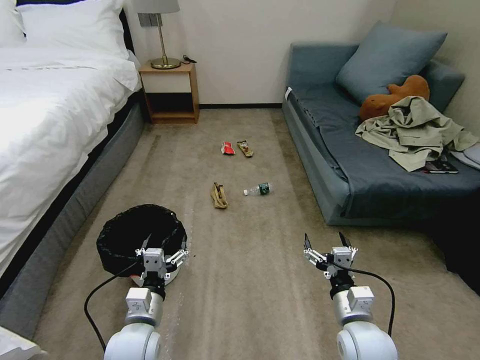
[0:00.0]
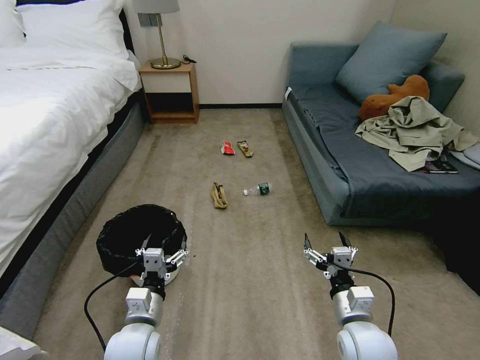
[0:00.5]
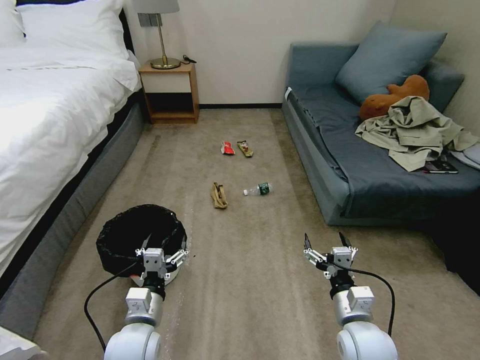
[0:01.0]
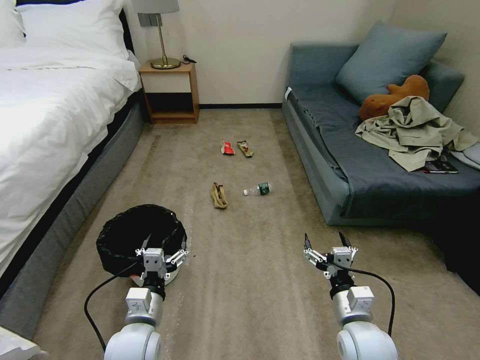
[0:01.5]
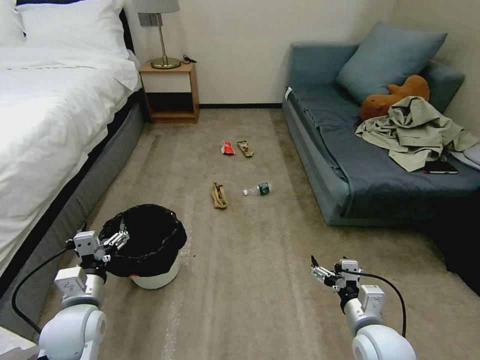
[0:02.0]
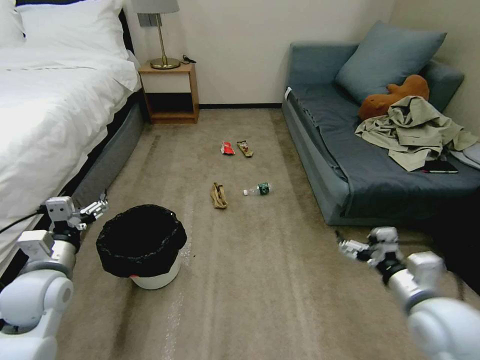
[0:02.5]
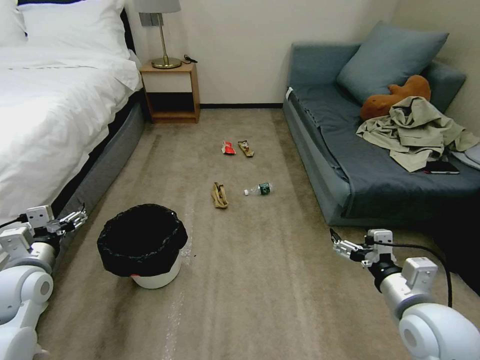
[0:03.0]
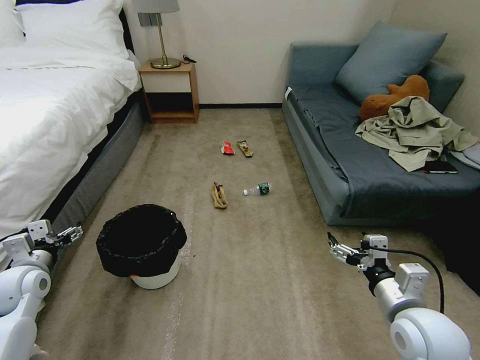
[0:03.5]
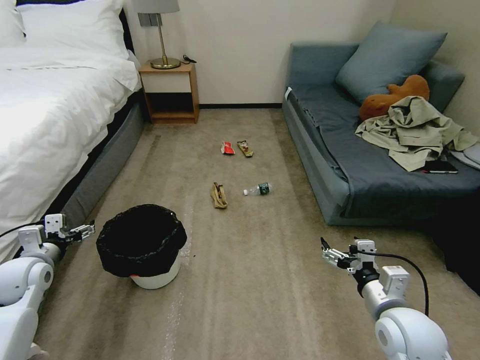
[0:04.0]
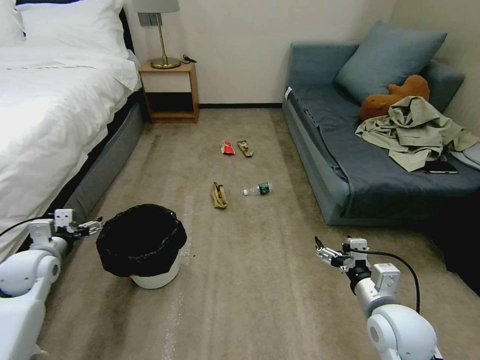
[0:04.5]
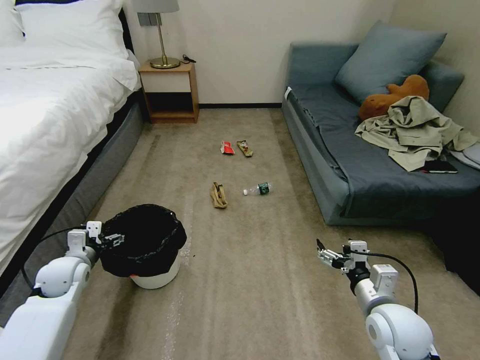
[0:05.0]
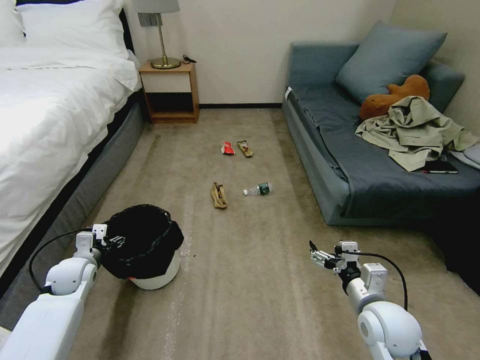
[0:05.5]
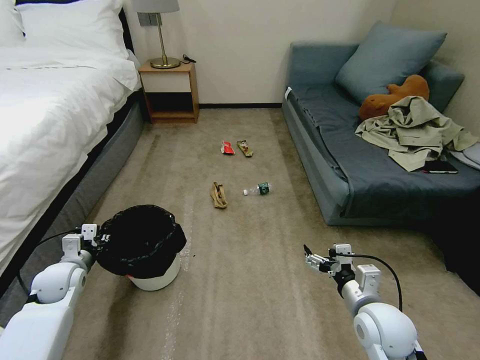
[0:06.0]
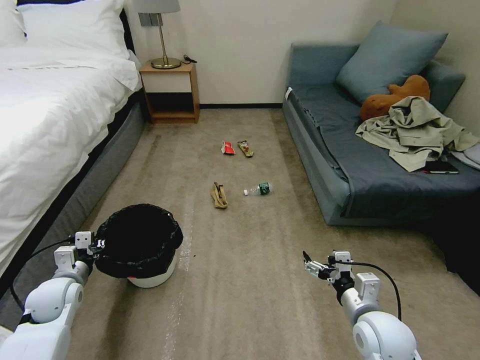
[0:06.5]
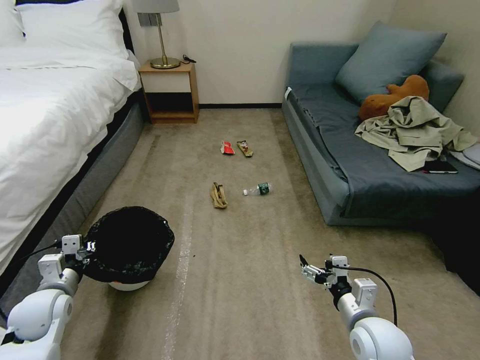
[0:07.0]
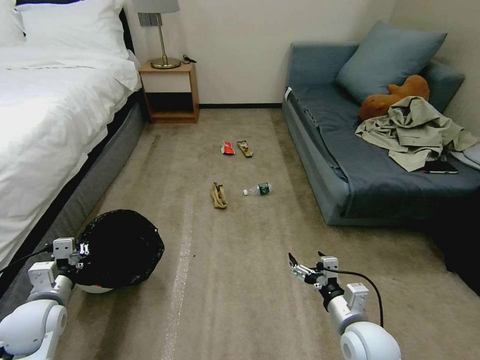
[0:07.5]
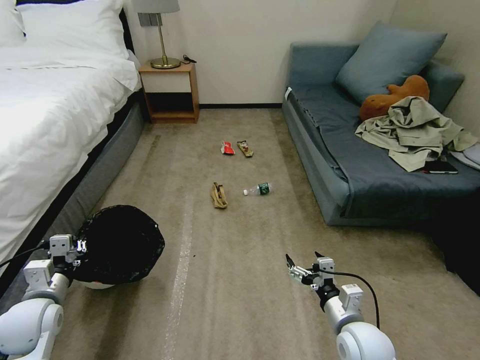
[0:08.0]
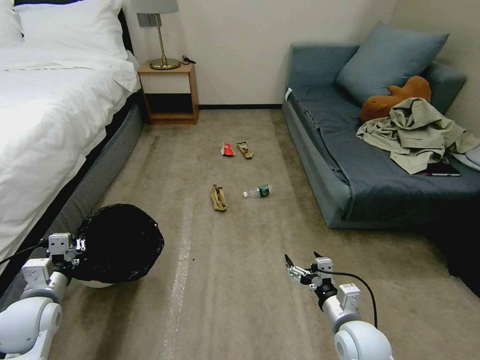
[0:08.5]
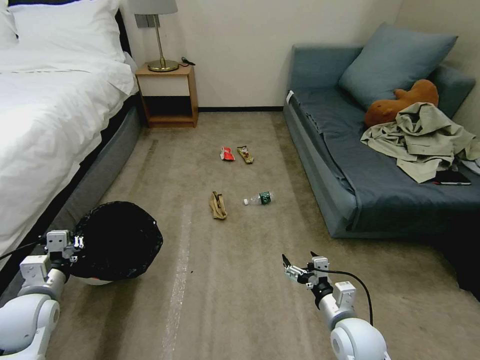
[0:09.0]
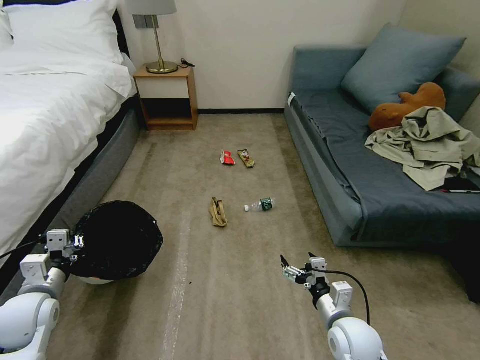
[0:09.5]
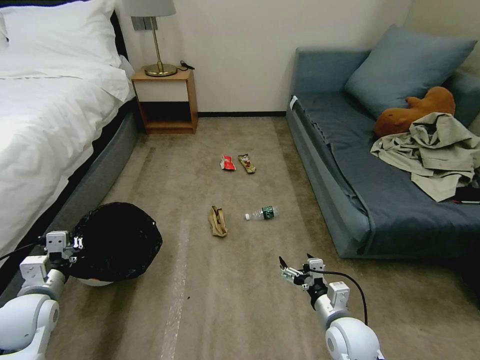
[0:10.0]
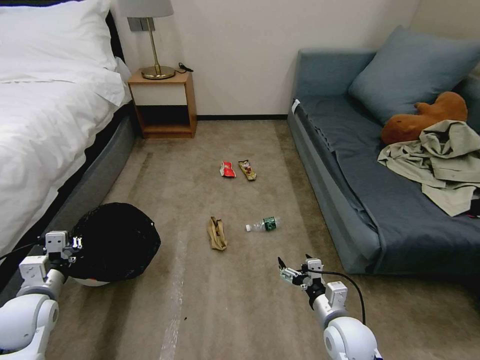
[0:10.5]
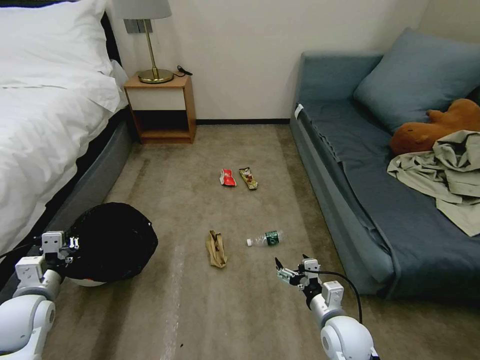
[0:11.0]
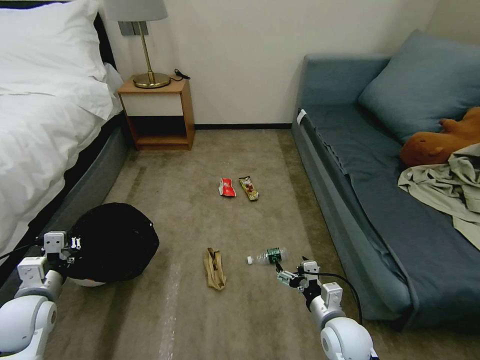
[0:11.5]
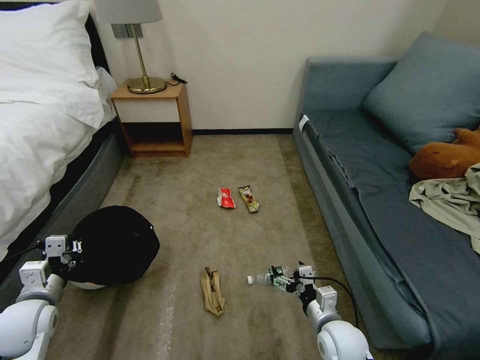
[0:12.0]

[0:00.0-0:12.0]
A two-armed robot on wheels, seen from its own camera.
Task of the whole recording: Pick up the trash bin, then pick up the garbage on the floor and place it into the trash bin.
0:02.0 to 0:04.0: The left gripper shifts some 15 cm to the left and forward. The right gripper goes about 5 cm upward.
0:04.0 to 0:06.0: The left gripper heads downward, covering roughly 5 cm, and closes up.
0:06.0 to 0:08.0: The right gripper shifts by about 5 cm; the left gripper shifts roughly 10 cm backward.

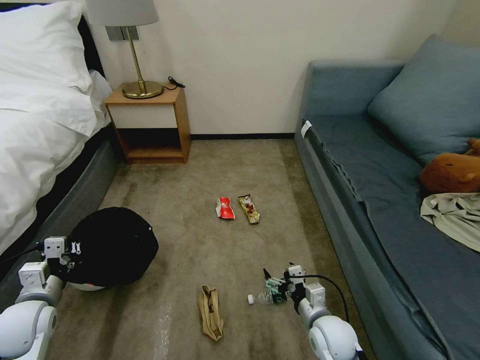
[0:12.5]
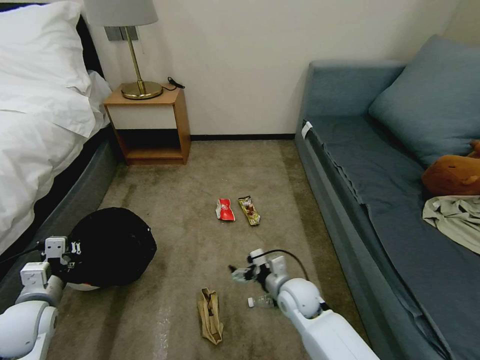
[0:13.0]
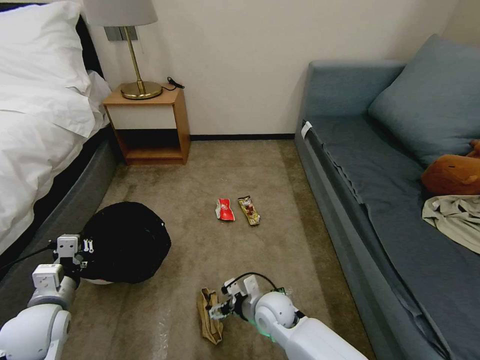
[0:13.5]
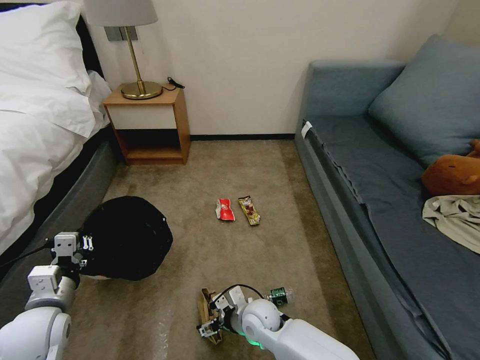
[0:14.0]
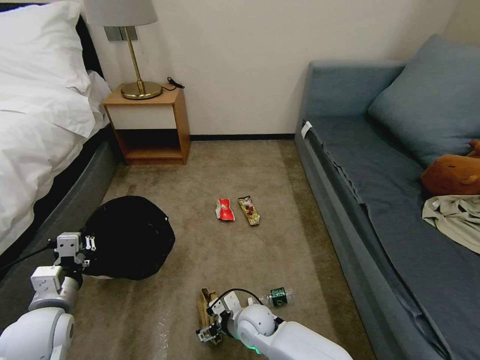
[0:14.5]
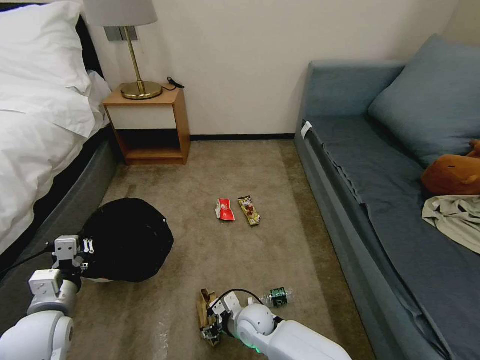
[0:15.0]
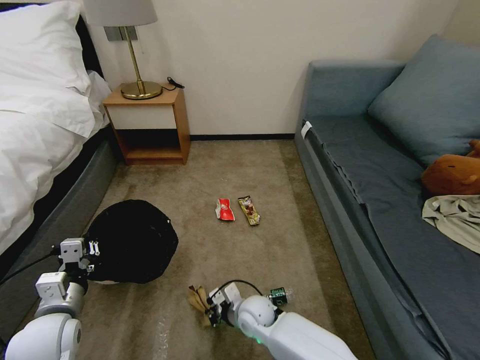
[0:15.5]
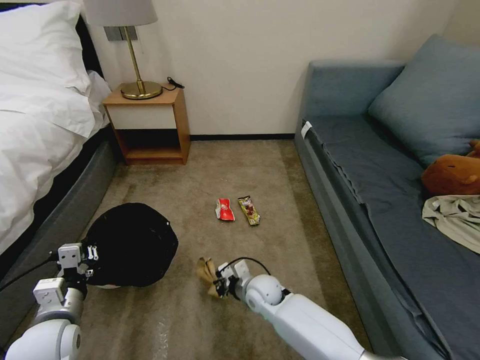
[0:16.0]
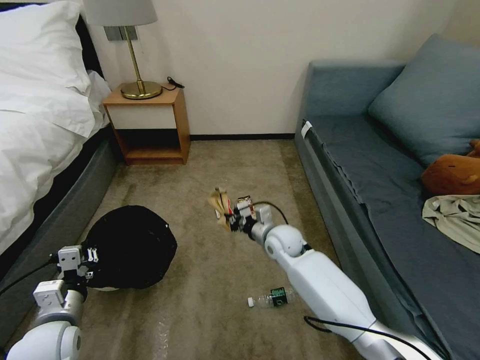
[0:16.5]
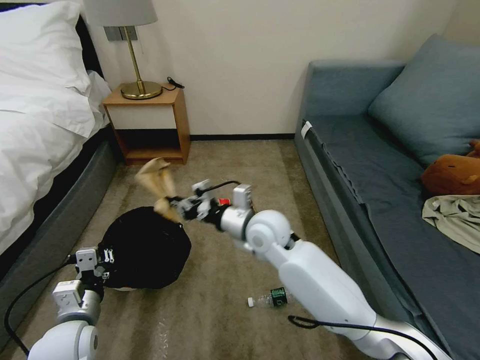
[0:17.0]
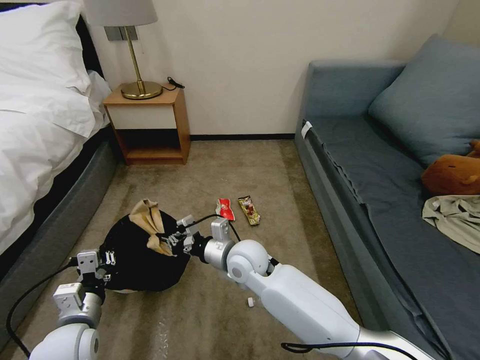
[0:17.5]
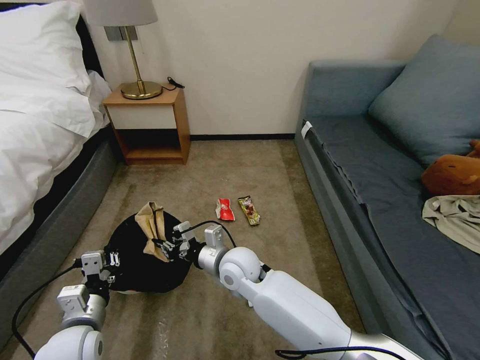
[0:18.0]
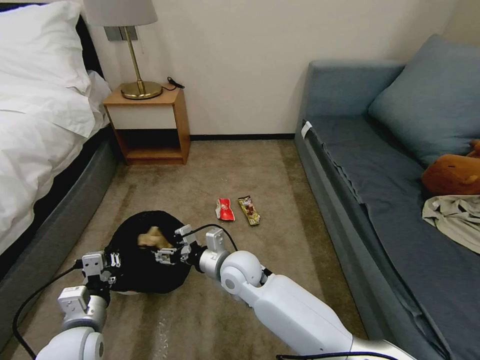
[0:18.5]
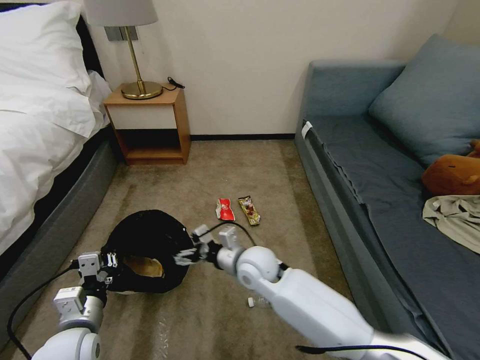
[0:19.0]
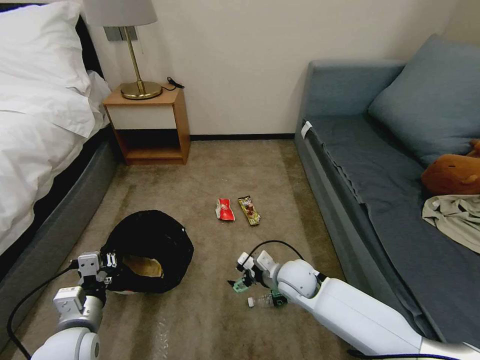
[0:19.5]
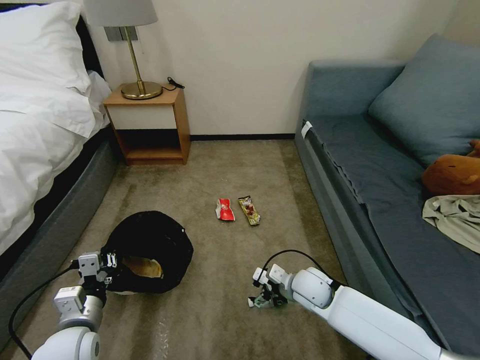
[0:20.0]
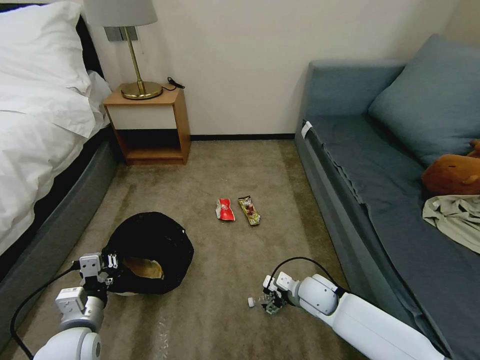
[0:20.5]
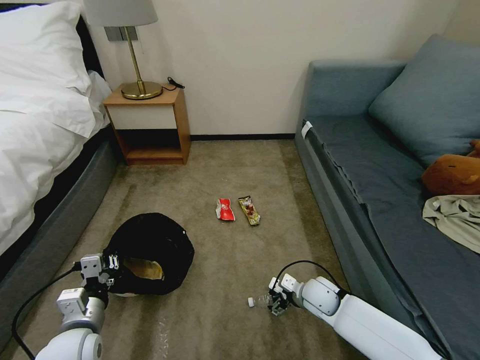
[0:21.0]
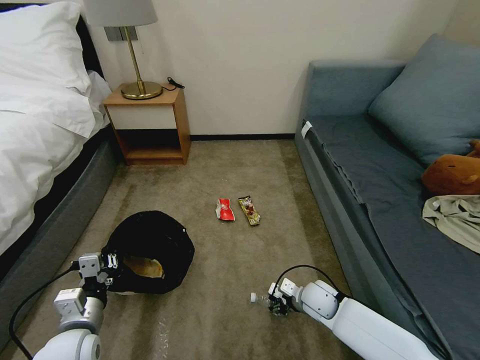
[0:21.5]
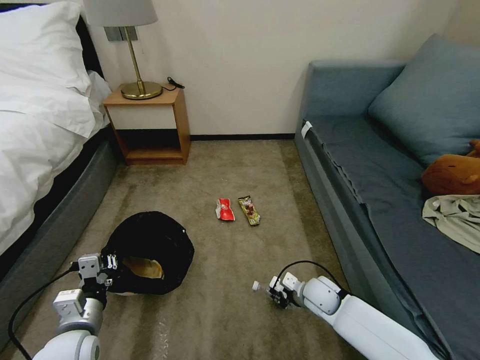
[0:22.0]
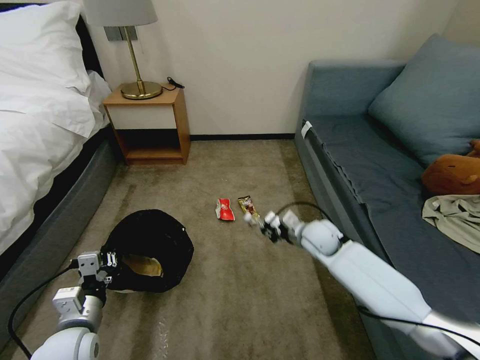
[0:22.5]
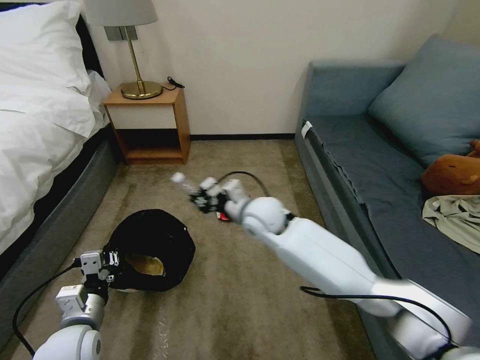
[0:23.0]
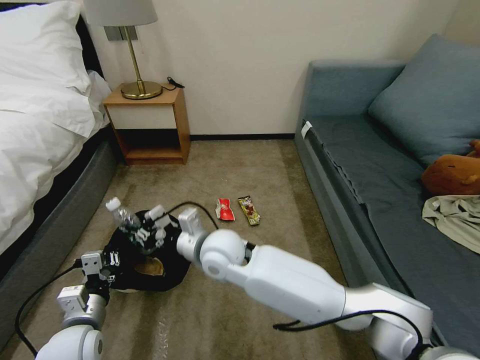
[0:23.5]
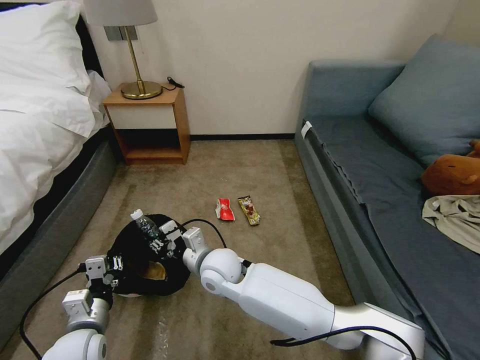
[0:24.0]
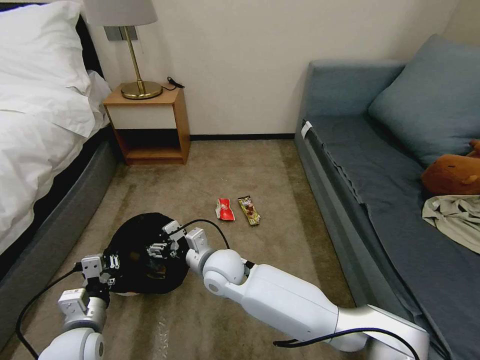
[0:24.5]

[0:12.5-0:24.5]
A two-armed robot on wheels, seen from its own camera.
Task of the whole recording: Pick up the trash bin, then pick up the garbage on the floor and place it into the trash bin.
0:12.5 to 0:14.5: The left gripper shifts approximately 5 cm to the right. Meanwhile the right gripper shifts about 15 cm to the left.
0:14.5 to 0:16.5: The right gripper goes about 25 cm forward, upward and to the right, and closes.
0:16.5 to 0:18.5: The right gripper heads to the left and backward, covering approximately 15 cm, and opens up.
0:18.5 to 0:20.5: The right gripper shifts some 25 cm to the right and downward.
0:20.5 to 0:22.5: The right gripper goes roughly 15 cm forward and upward, and closes up.
0:22.5 to 0:24.5: The right gripper shifts some 25 cm to the left, and opens its fingers.

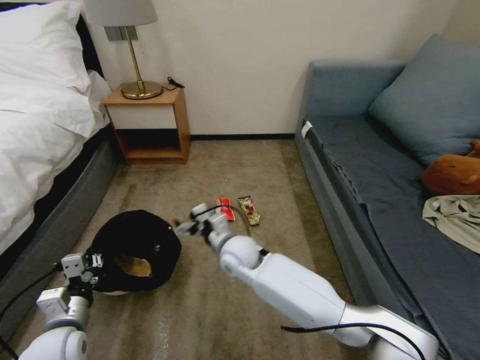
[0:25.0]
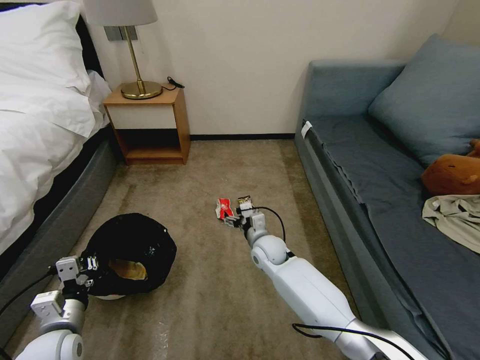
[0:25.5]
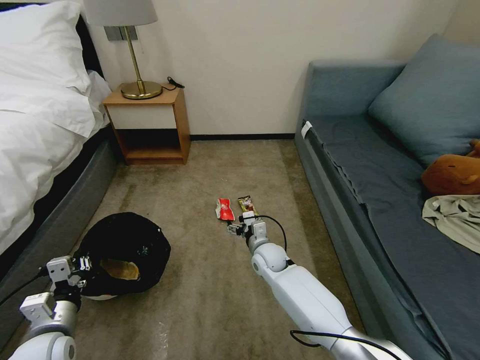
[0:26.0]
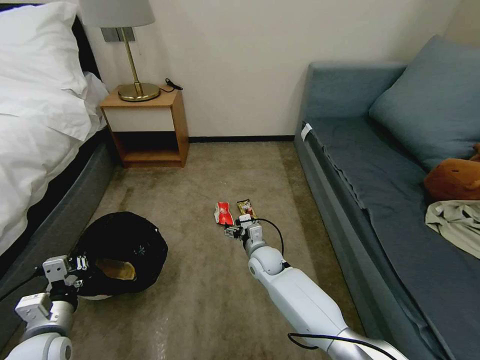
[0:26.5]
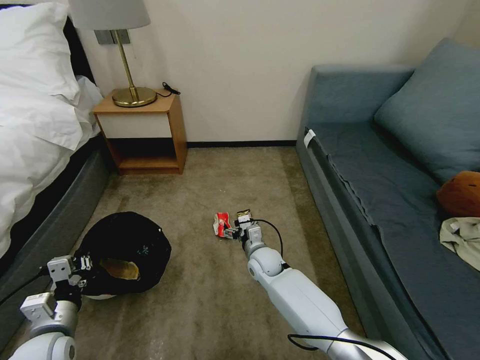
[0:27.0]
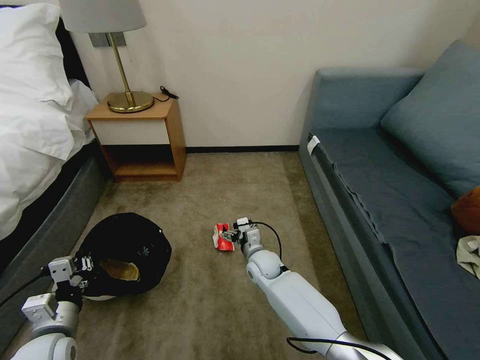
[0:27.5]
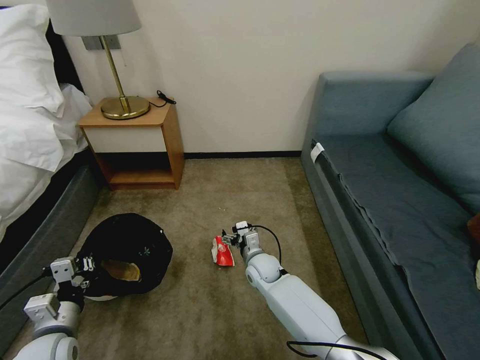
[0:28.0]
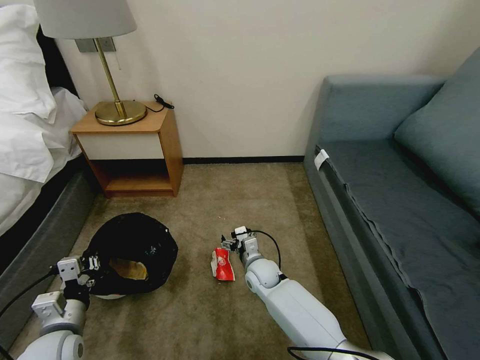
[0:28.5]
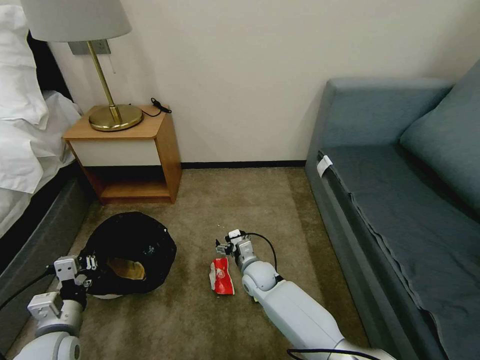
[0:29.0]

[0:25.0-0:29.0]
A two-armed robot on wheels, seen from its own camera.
Task of the whole recording: Pick up the trash bin, then pick up the garbage on the floor and place it into the trash bin.
0:25.0 to 0:27.0: The right gripper moves downward and to the right, approximately 15 cm.
